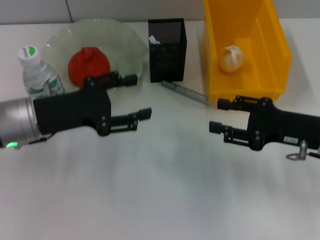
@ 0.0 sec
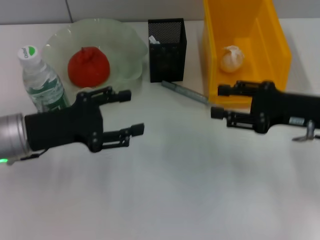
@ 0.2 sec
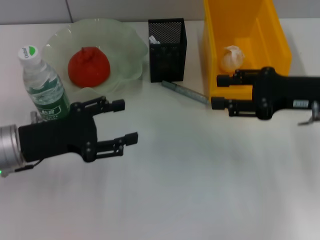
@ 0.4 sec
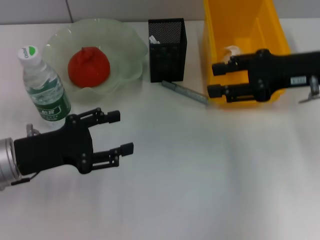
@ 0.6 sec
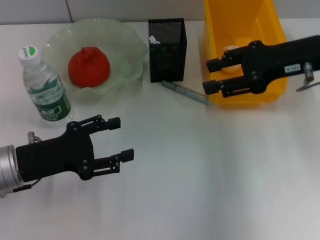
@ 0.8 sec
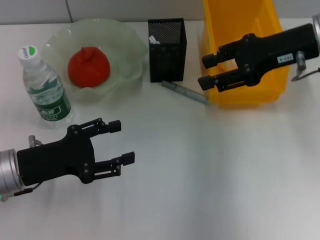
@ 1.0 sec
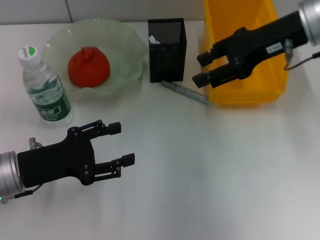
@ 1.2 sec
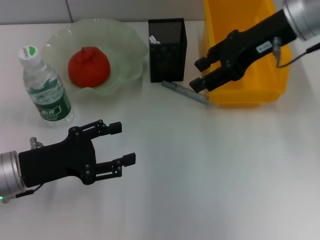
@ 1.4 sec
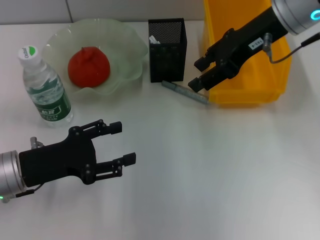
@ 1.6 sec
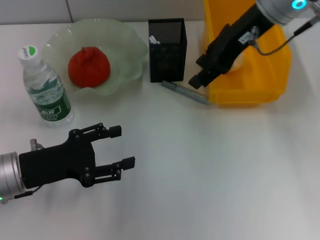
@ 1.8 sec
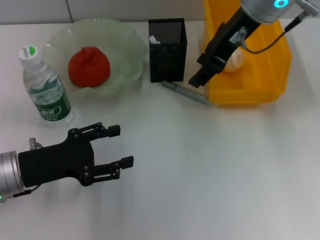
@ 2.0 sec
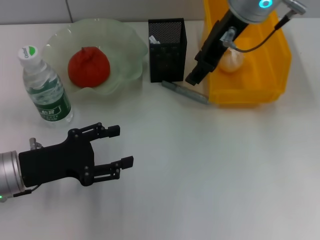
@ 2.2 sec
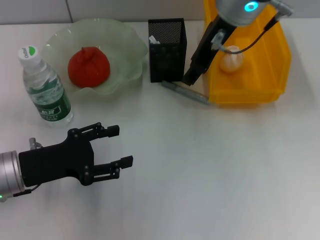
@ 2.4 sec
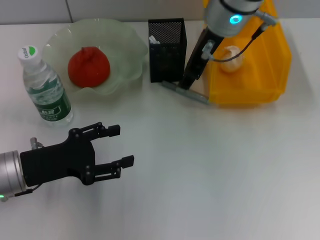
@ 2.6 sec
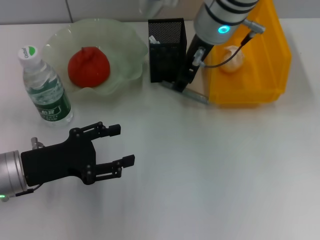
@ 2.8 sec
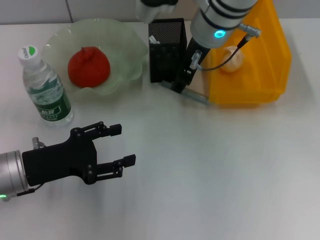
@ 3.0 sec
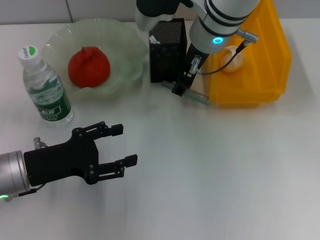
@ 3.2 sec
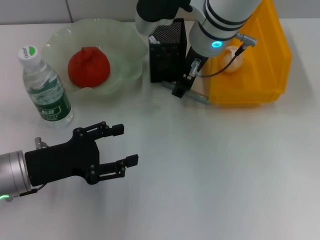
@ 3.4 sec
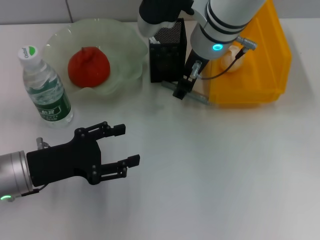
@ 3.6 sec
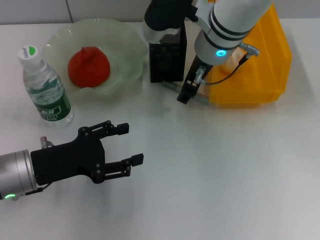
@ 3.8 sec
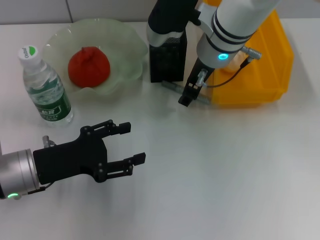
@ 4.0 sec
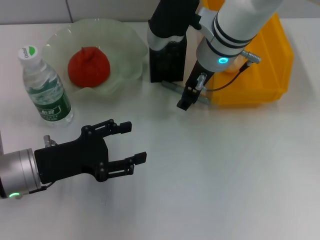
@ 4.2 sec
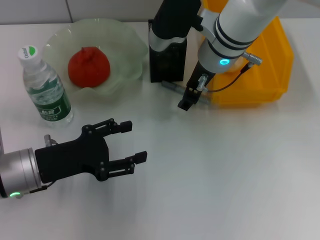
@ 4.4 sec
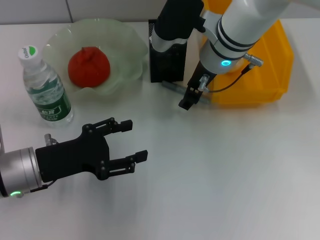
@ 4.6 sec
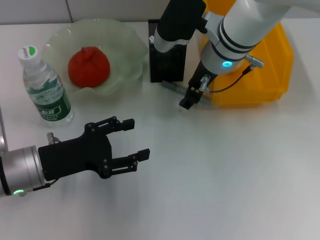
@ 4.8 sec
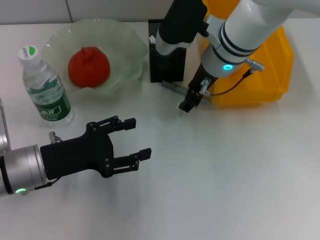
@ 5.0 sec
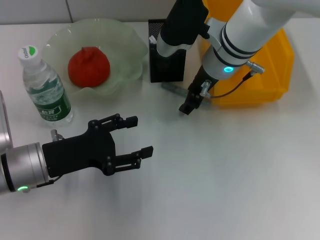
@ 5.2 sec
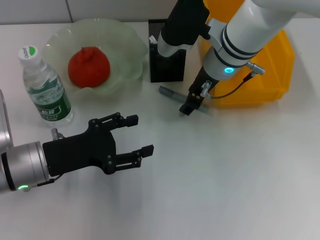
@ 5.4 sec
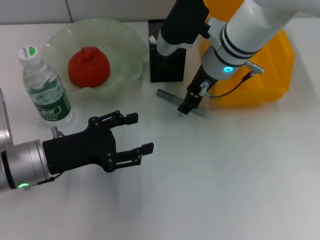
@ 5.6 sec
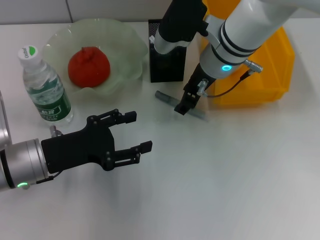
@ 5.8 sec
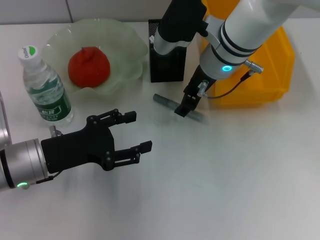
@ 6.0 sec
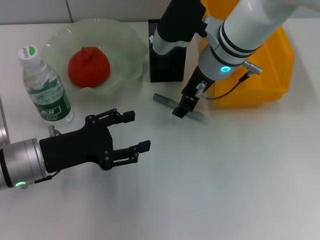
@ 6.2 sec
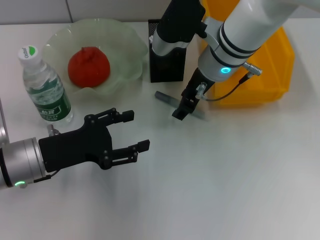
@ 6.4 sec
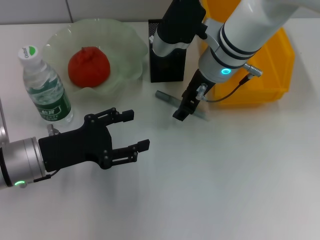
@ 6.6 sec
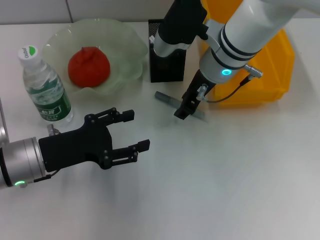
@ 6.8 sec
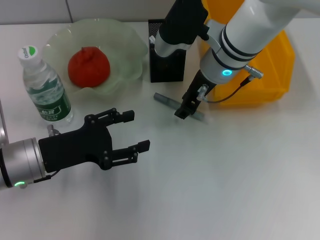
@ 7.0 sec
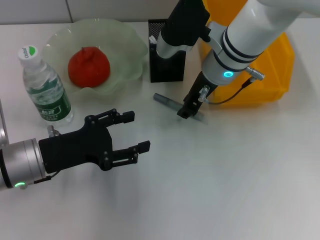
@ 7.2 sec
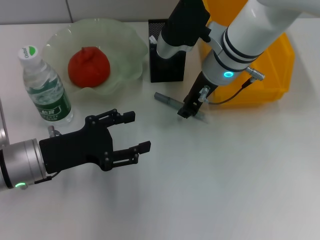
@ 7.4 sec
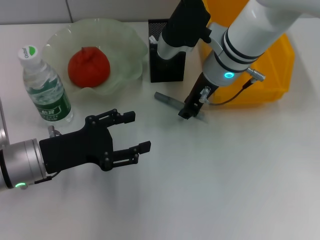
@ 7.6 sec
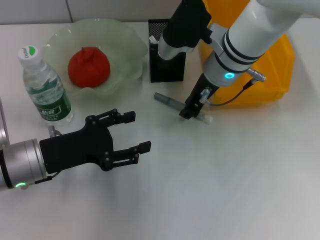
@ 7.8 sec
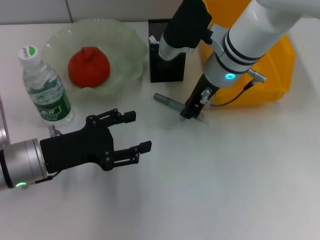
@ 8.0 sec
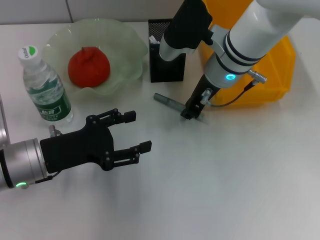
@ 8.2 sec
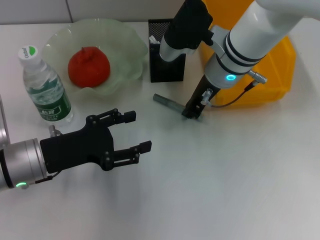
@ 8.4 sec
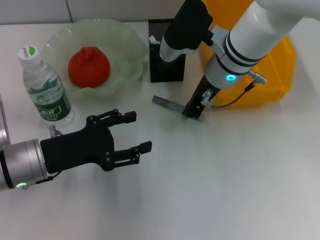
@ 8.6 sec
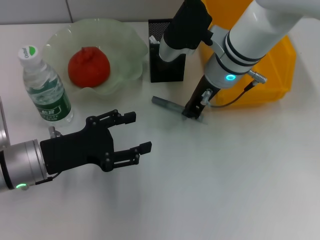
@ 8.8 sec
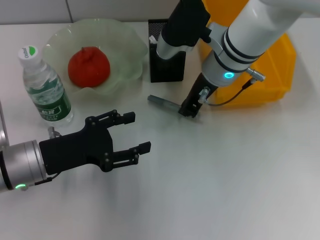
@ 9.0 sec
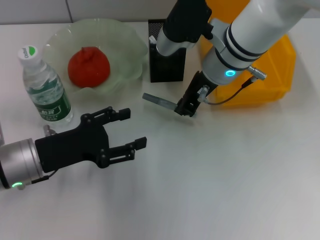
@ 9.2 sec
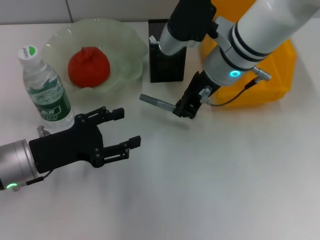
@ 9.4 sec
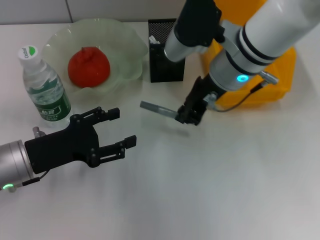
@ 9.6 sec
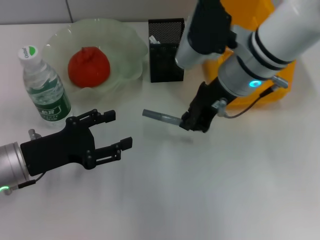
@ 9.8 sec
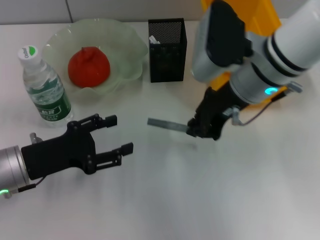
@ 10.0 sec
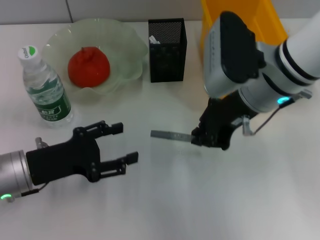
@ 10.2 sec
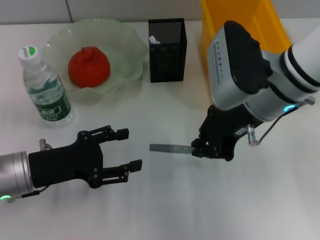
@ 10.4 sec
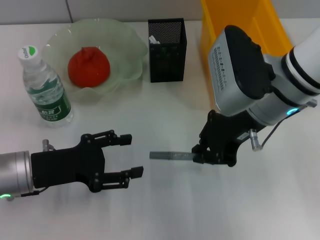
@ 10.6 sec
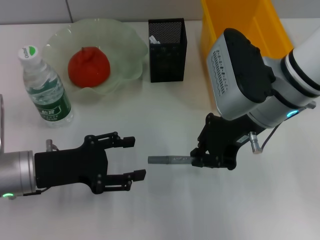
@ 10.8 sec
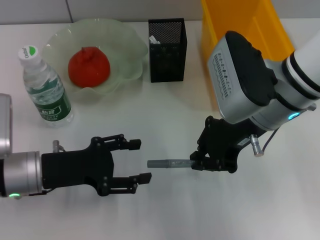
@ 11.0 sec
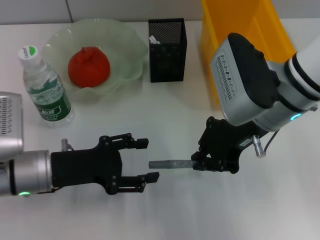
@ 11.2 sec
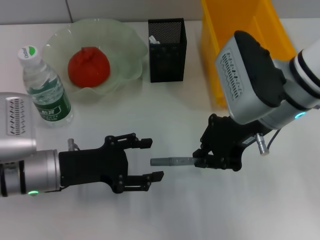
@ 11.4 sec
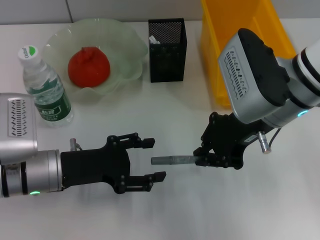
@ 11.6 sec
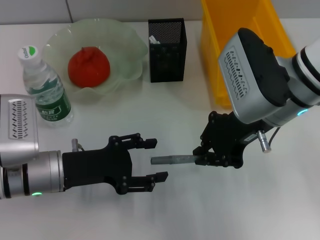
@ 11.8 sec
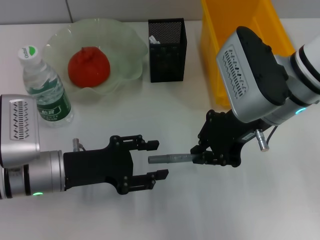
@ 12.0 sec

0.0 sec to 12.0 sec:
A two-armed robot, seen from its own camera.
Step, 0.0 sec to 8.4 sec: Grab the gray glue with the right hand.
0.0 sec to 1.6 sec: The right gripper travels upward, forward and to the left by approximately 25 cm. The left gripper goes about 5 cm backward.
1.6 sec to 3.0 sec: The right gripper moves to the left, about 10 cm.
3.0 sec to 4.4 sec: The right gripper shifts by some 5 cm.
4.4 sec to 6.0 sec: The grippers make only small movements.
6.0 sec to 7.6 sec: Both grippers stay about where they are.
7.6 sec to 9.0 sec: Neither gripper changes place.
9.0 sec to 10.4 sec: The right gripper moves backward, approximately 10 cm.
10.4 sec to 12.0 sec: The grippers stay close to where they were, moving slightly.

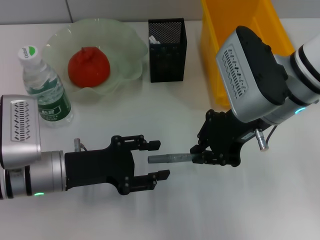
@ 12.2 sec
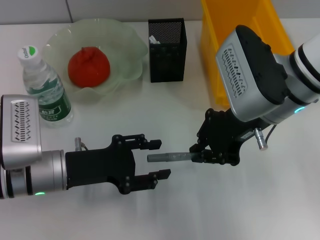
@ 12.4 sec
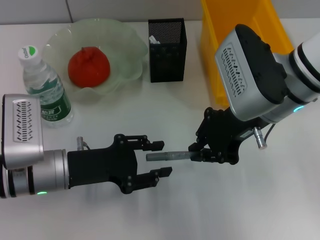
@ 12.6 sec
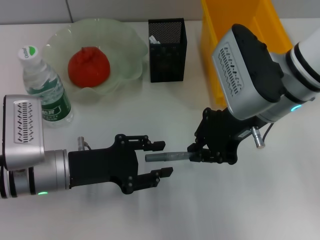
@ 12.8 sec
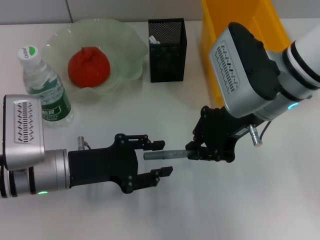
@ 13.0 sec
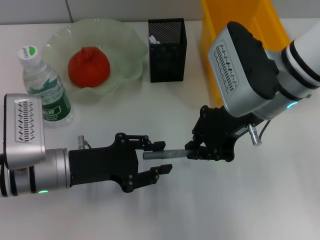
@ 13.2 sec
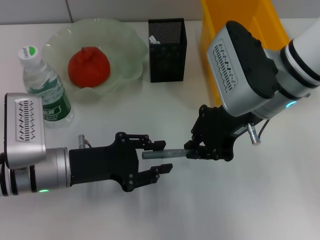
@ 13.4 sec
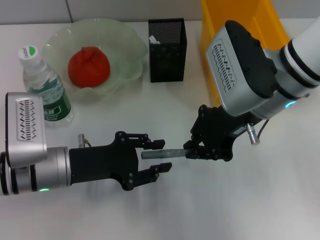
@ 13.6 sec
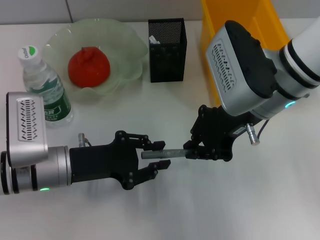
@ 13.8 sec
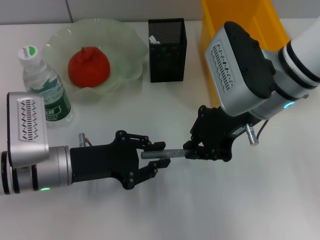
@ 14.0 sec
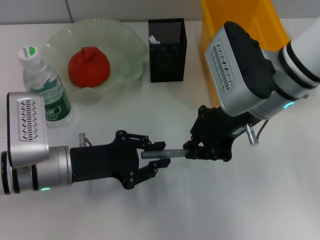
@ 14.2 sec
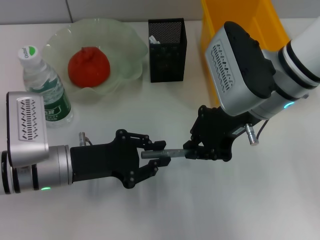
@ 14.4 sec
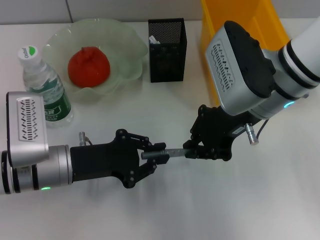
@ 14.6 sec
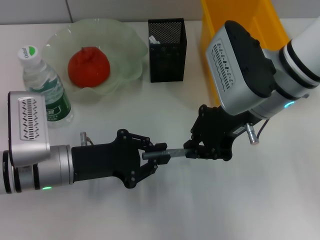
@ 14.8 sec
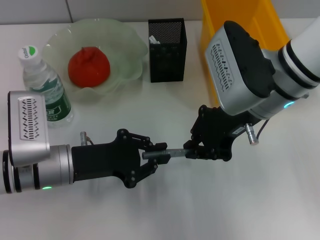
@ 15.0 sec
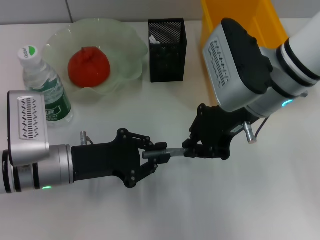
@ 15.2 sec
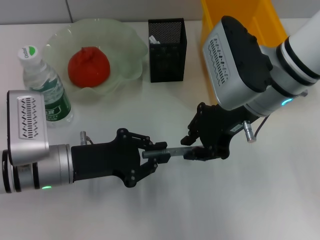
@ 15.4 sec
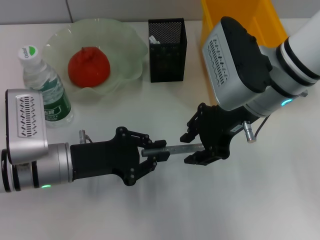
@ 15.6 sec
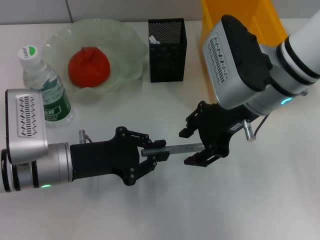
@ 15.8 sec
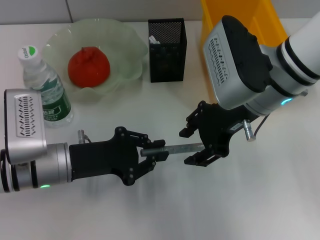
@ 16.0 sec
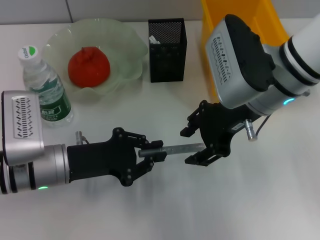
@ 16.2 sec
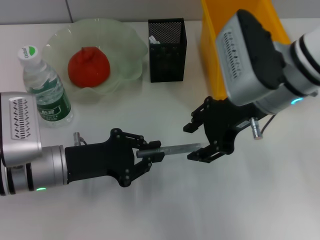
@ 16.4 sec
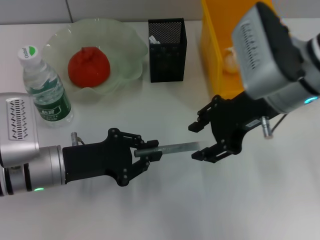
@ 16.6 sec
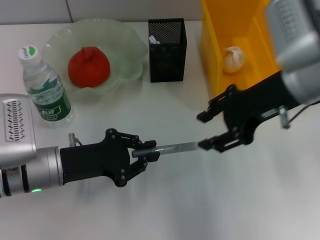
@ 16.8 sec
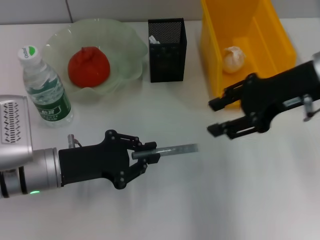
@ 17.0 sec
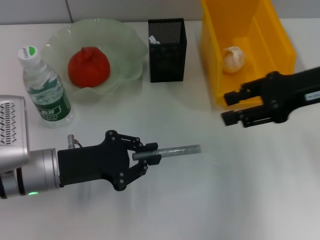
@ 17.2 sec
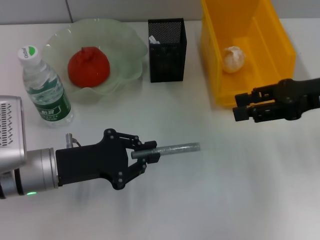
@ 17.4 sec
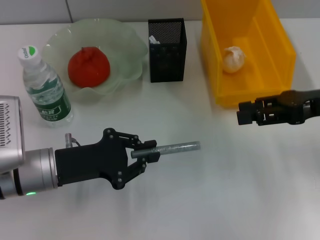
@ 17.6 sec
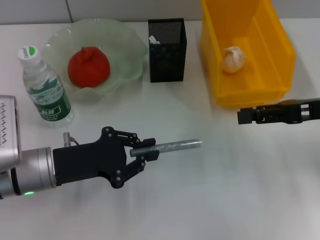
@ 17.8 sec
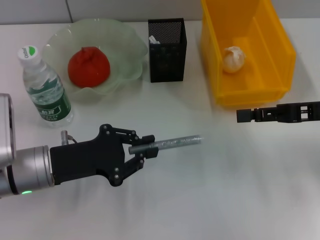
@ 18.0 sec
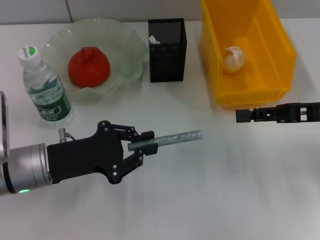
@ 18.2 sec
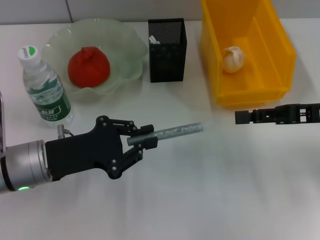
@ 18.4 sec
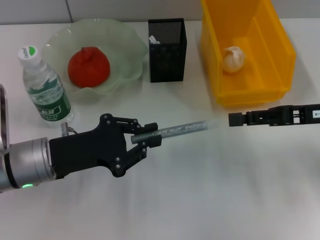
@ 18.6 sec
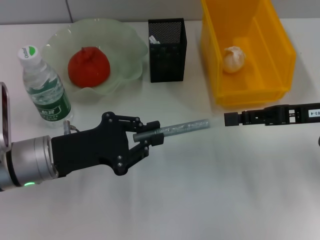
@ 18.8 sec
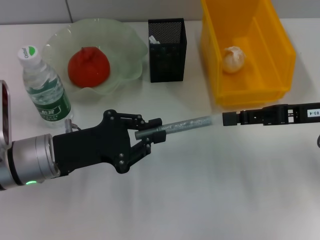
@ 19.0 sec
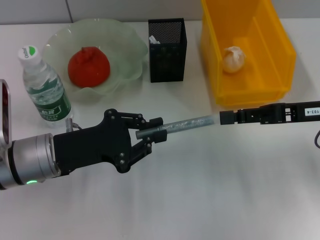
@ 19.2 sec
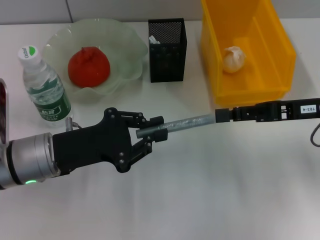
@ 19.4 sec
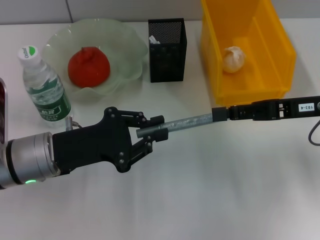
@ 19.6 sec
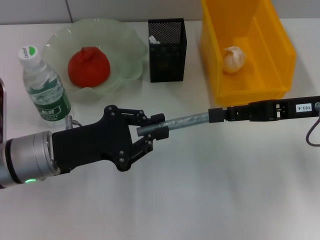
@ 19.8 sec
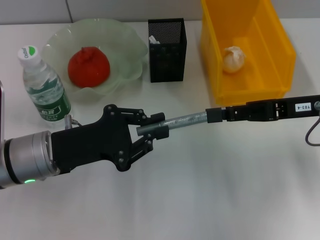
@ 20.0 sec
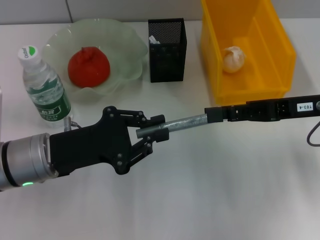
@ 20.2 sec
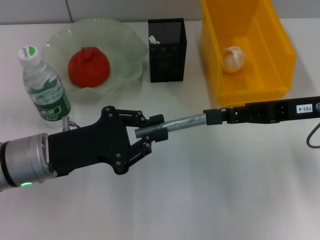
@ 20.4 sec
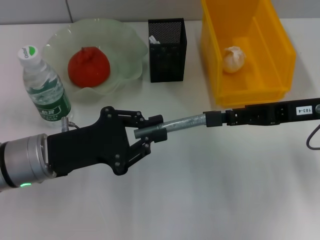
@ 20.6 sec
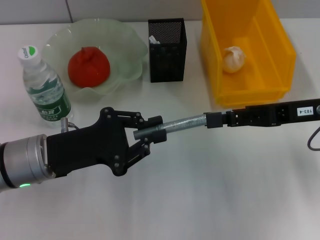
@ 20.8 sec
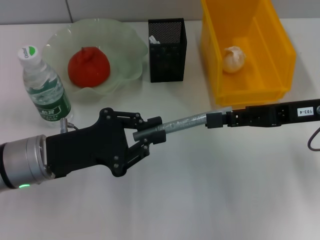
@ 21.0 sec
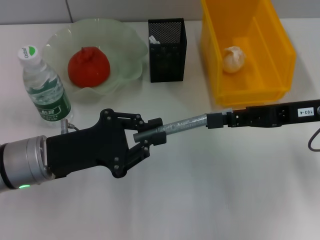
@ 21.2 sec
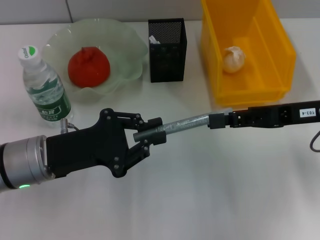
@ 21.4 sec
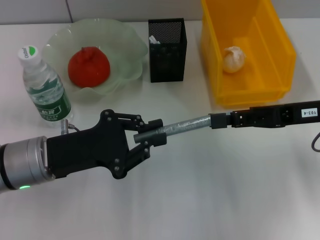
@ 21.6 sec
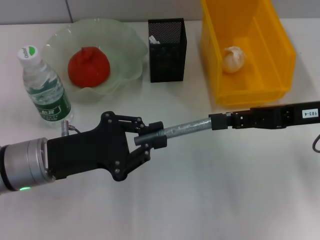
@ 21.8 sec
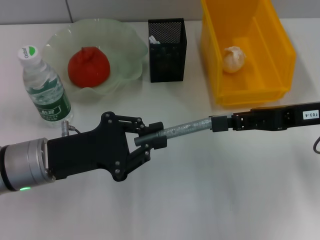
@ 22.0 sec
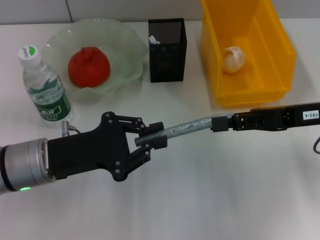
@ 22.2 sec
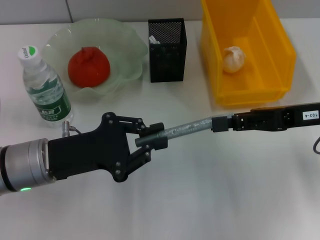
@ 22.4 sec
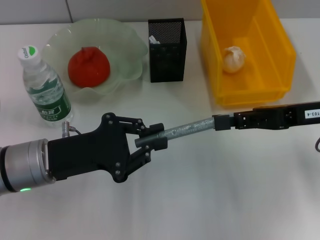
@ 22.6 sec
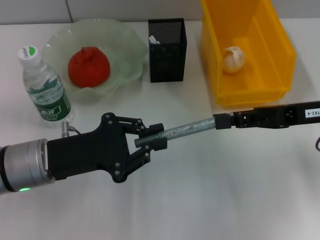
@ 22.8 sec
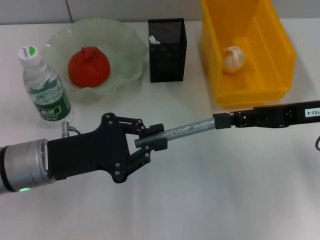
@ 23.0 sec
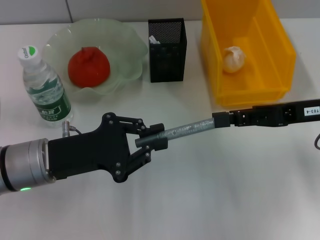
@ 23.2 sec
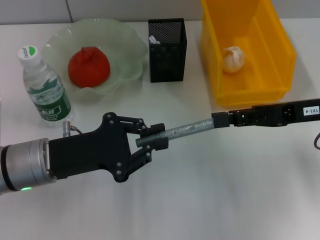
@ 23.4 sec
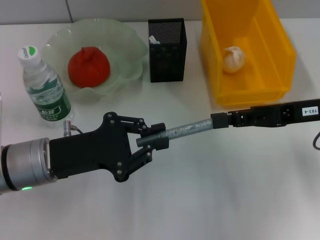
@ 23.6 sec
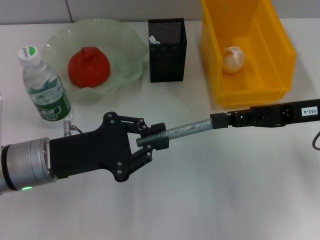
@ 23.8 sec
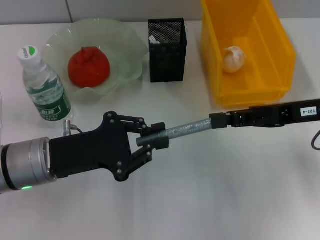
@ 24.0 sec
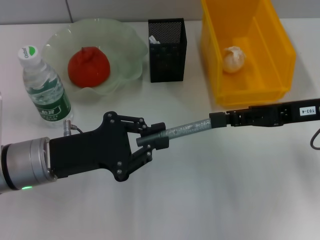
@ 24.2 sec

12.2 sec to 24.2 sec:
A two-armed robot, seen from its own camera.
Step, 12.2 sec to 15.6 sec: Pass the gray glue from the right hand to the left hand.
12.2 sec to 13.8 sec: The left gripper closes.
13.8 sec to 15.2 sec: Both grippers stay about where they are.
15.2 sec to 16.6 sec: The right gripper opens up.
16.6 sec to 18.2 sec: The right gripper shifts some 15 cm to the right and downward.
18.2 sec to 19.8 sec: The grippers move only a little.
19.8 sec to 24.2 sec: Both grippers stay put.
